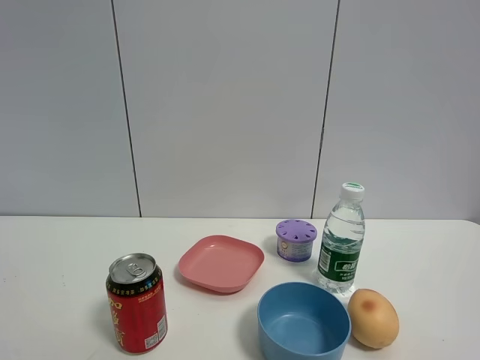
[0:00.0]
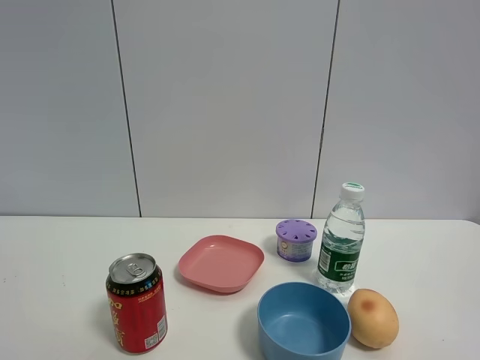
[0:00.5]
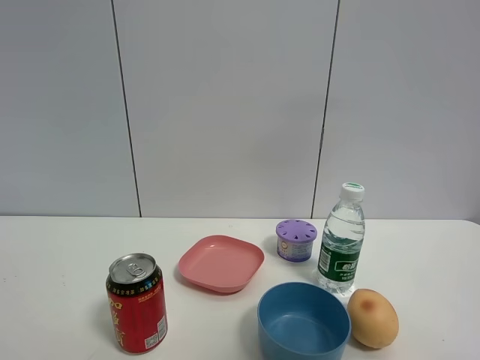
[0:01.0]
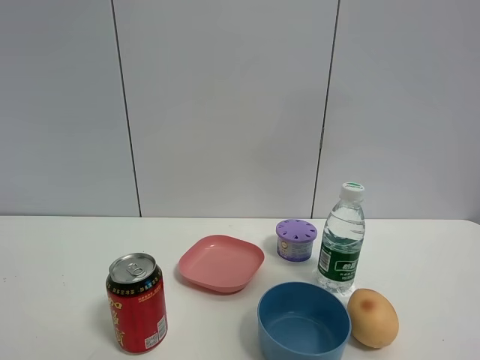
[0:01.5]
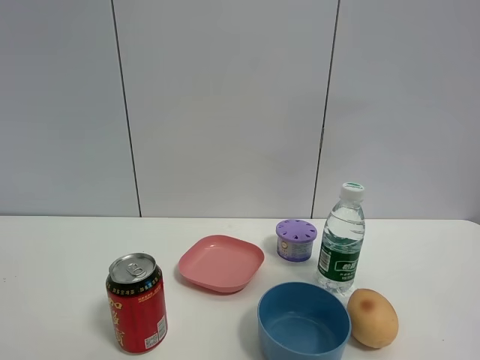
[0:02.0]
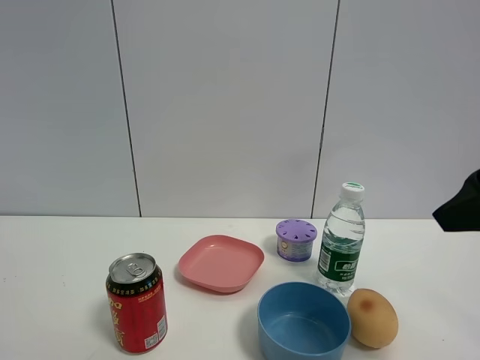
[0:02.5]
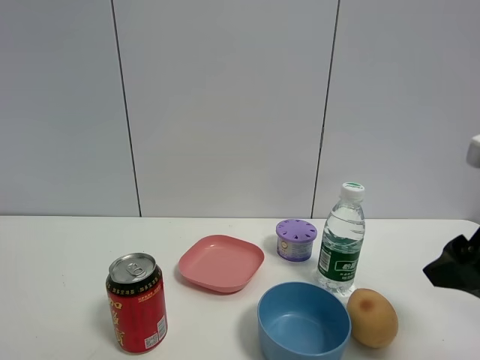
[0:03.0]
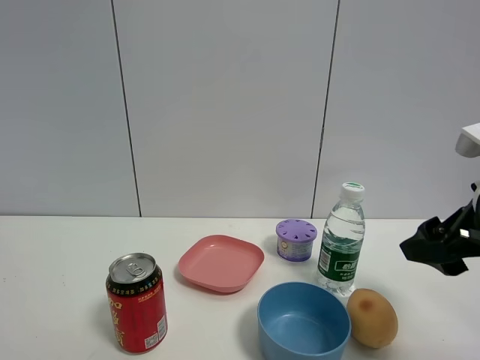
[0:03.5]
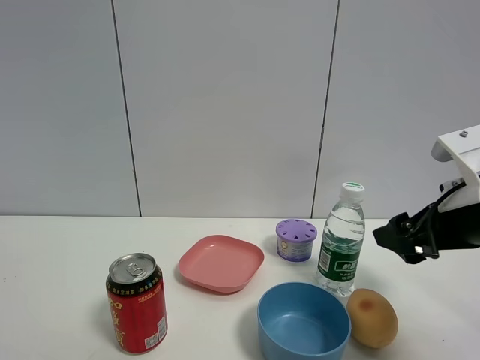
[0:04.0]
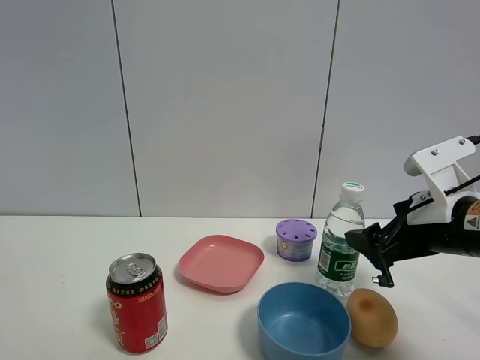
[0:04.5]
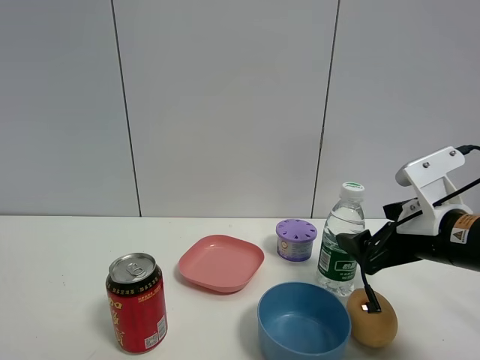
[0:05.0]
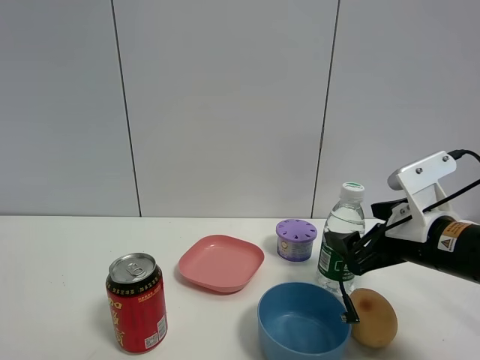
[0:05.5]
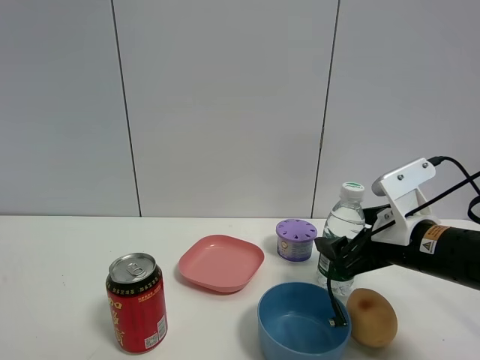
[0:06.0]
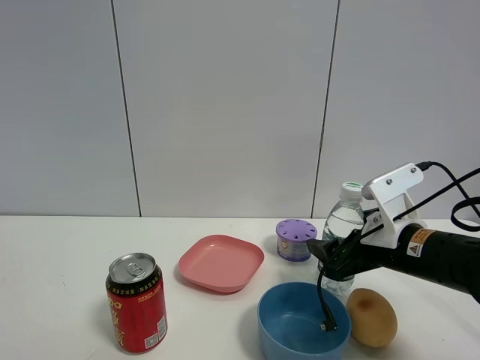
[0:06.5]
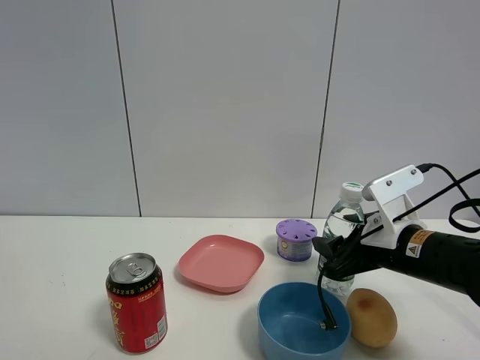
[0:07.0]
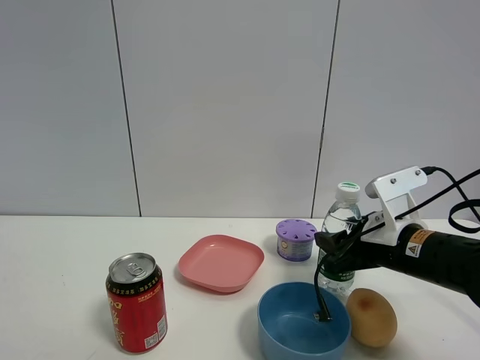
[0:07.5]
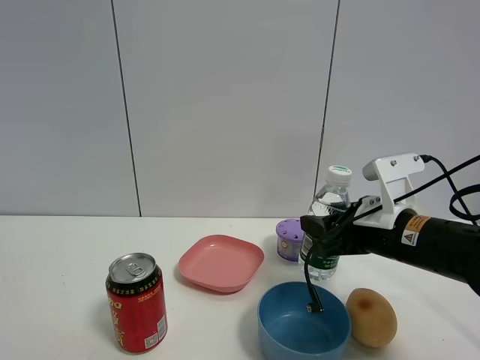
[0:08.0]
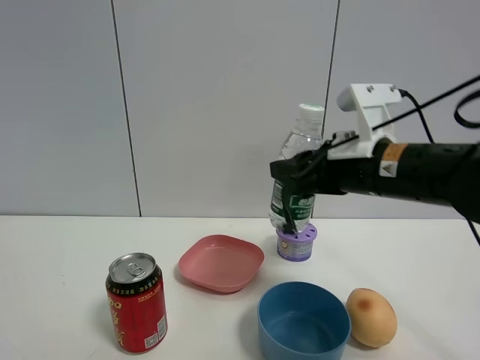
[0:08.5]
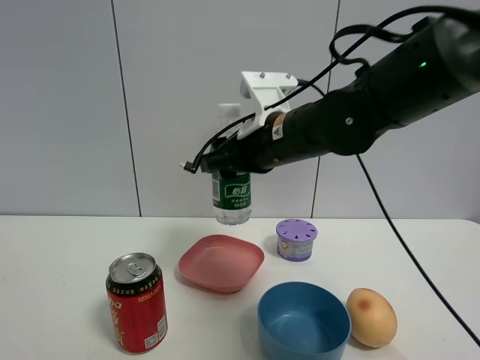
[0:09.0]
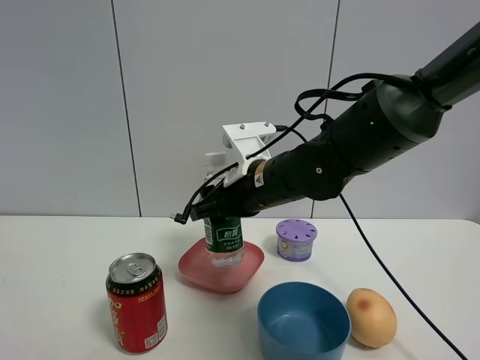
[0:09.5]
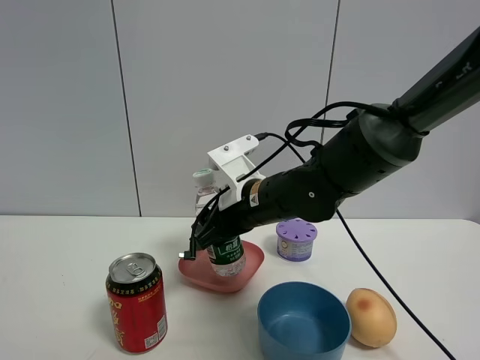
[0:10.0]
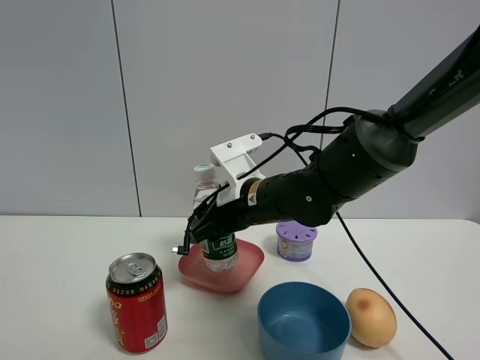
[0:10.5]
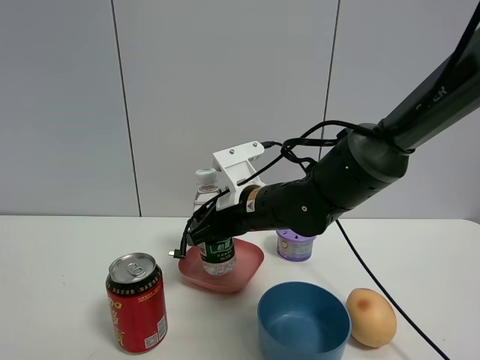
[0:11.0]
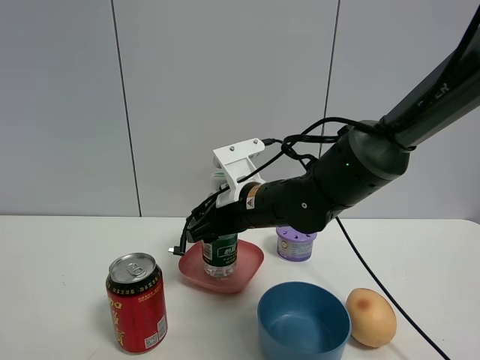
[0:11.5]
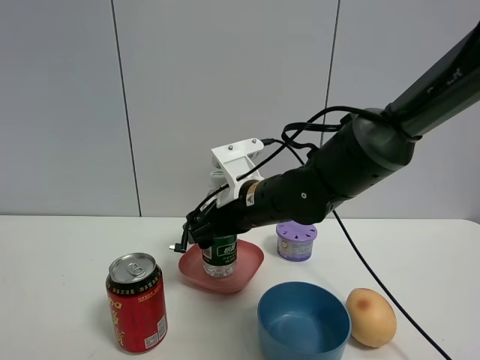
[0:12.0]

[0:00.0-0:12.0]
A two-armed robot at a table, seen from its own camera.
Task of the whole recording: the gripper move the object.
Step, 0:00.0 to 0:07.0: Grasp the YiBao mineral water with the right gripper.
0:00.0 to 0:02.0: The right gripper heads forward and upward, covering approximately 20 cm, and closes up.
0:02.0 to 0:04.0: The right gripper heads downward and forward, covering some 20 cm, and opens up.
0:04.0 to 0:06.0: The right gripper moves downward, about 5 cm.
0:06.0 to 0:08.0: The right gripper closes up.
0:08.0 to 0:10.0: The right gripper heads to the left, covering some 15 cm.
0:10.0 to 0:12.0: The right gripper opens.

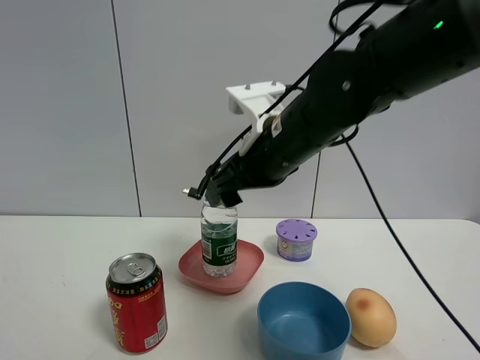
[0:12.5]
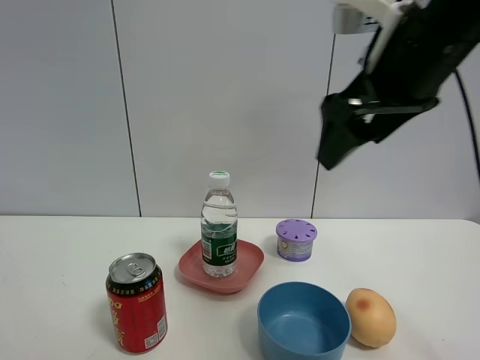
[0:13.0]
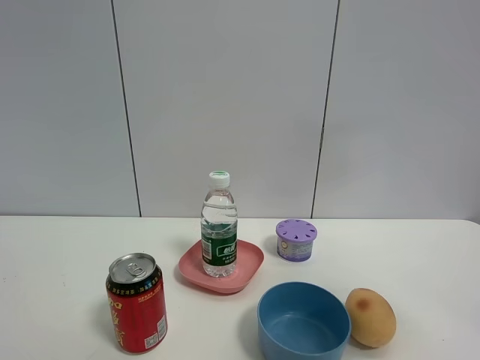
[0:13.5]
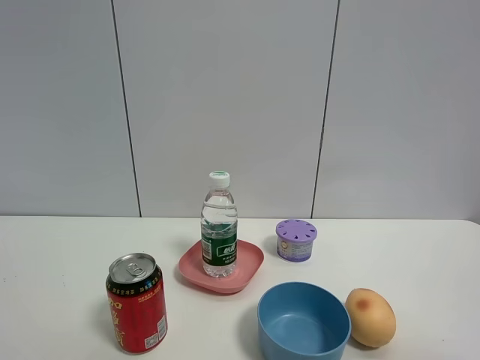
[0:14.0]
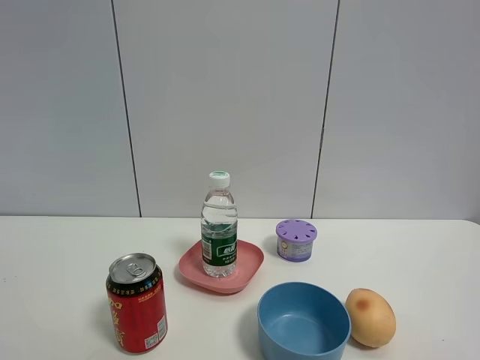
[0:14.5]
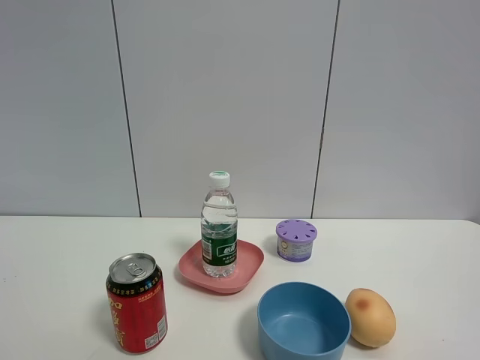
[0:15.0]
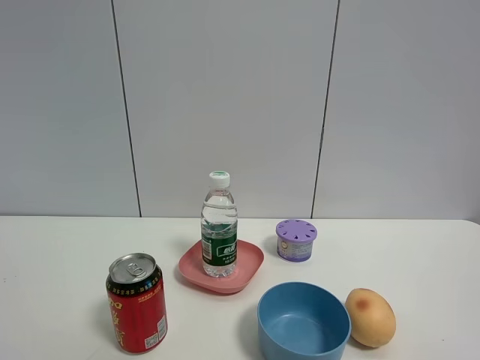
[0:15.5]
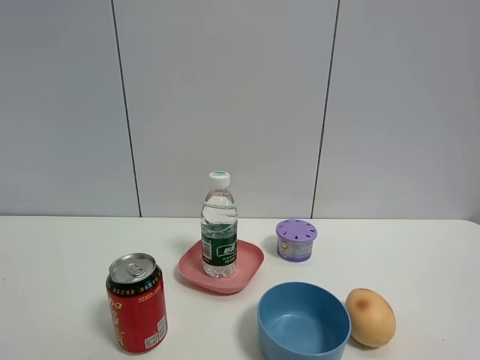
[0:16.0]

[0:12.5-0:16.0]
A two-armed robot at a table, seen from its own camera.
Task of the whole recording: the gripper move the object.
0:12.5 to 0:14.5: The right gripper heads backward and to the right, covering roughly 40 cm.
0:14.5 to 0:16.0: Both grippers stay about where they are.

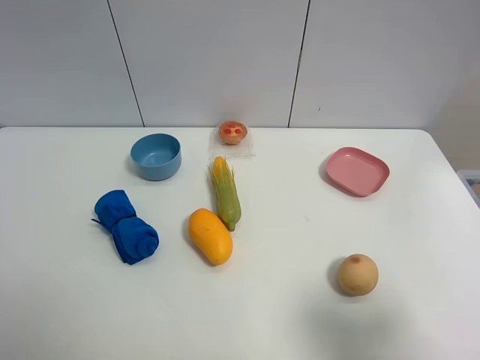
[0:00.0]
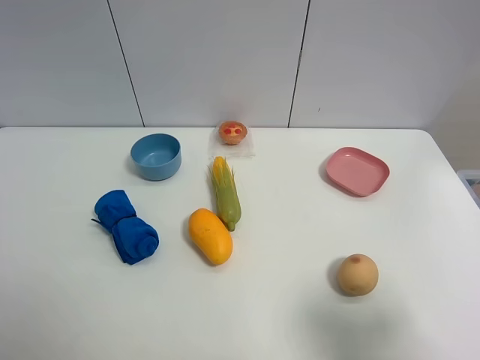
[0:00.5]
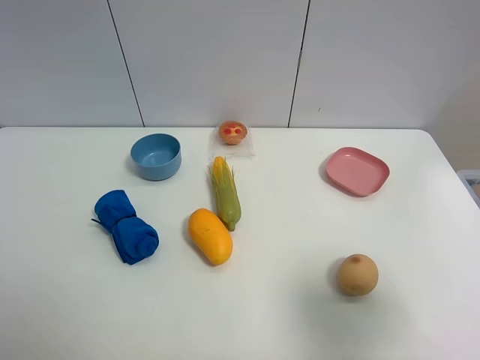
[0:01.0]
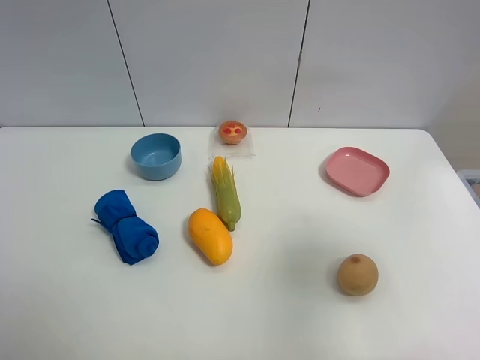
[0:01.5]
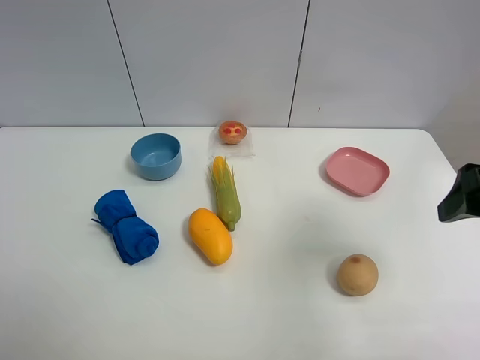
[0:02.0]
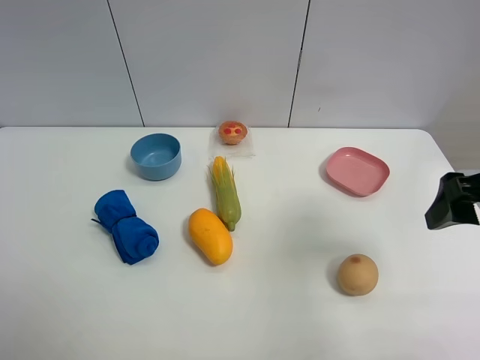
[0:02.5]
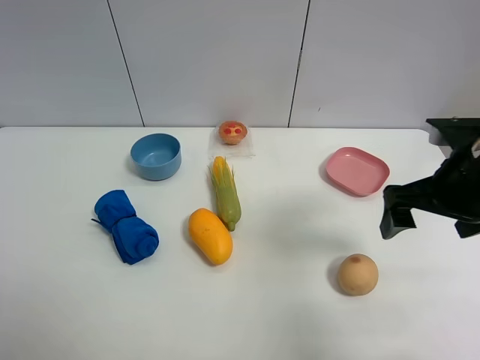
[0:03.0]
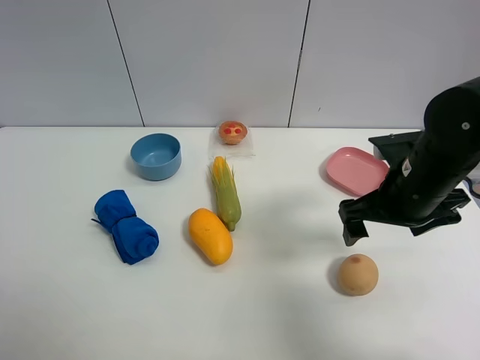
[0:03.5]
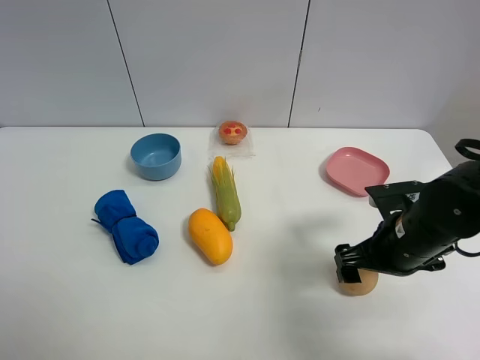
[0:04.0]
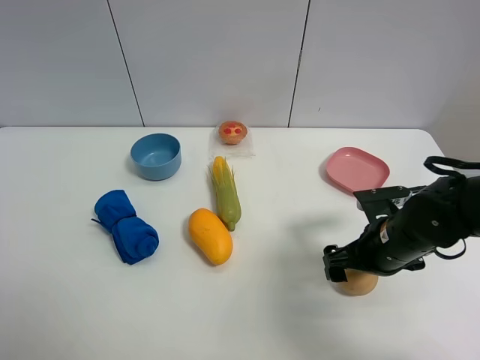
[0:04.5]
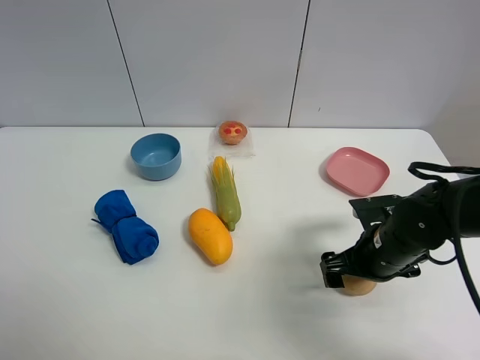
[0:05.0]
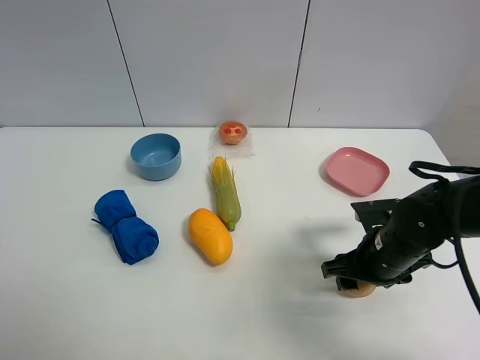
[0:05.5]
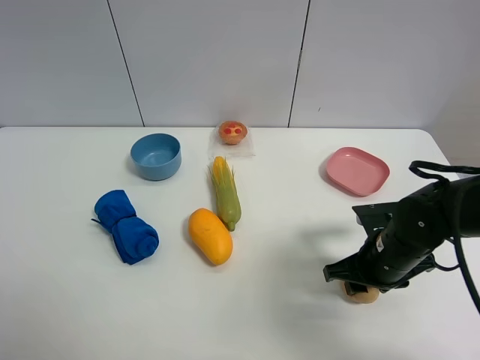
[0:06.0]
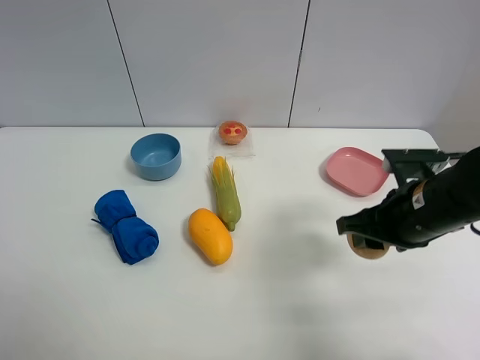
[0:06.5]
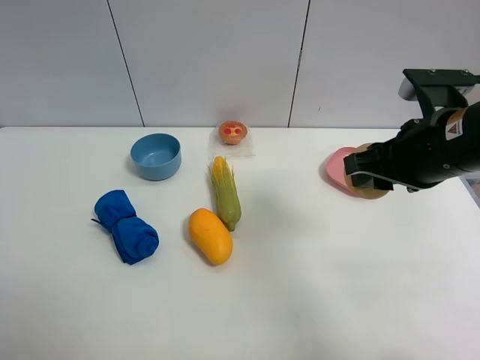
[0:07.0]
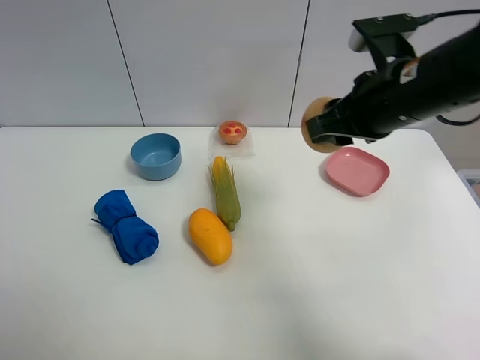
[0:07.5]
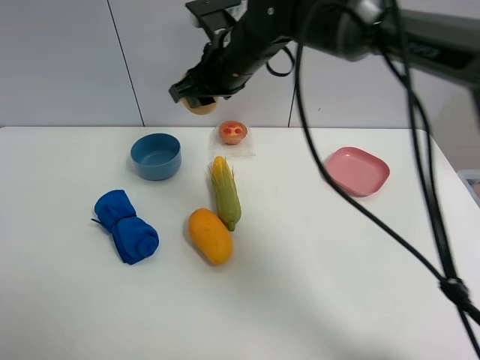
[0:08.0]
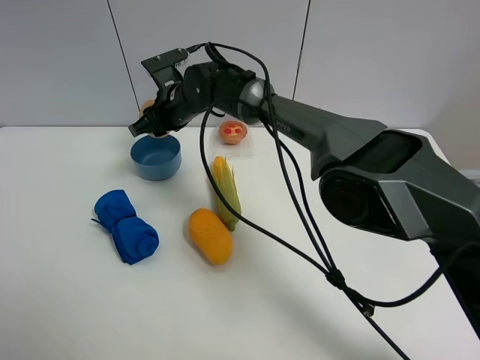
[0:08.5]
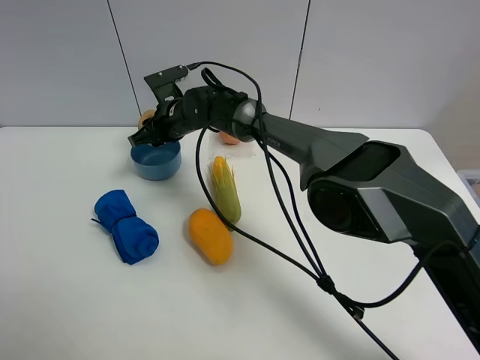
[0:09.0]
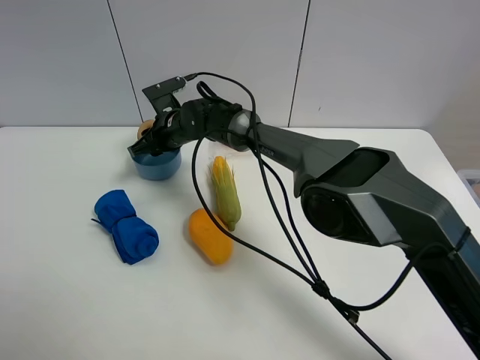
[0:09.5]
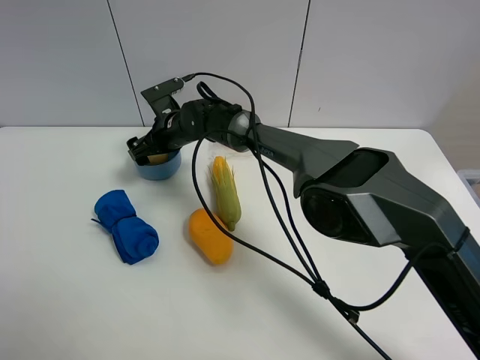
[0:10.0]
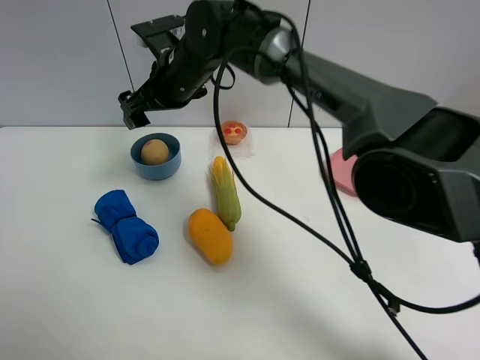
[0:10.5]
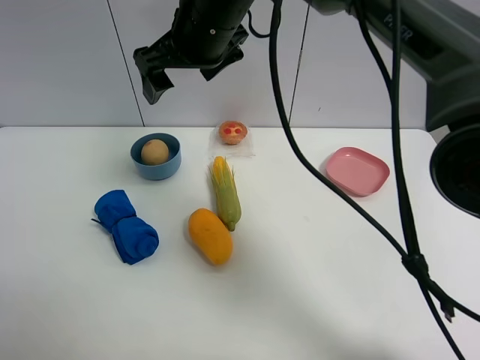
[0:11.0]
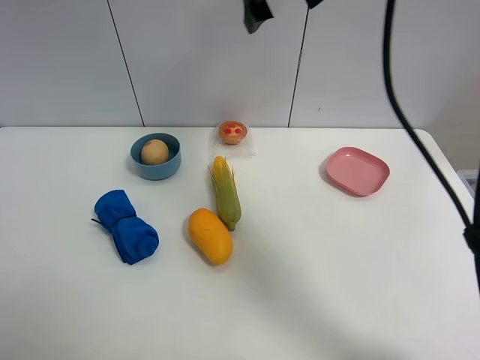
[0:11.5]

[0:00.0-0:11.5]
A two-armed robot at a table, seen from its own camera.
Task of the whole recording: the gripper move the object.
Step, 0:00.0 to 0:05.5: Grasp the egg yolk pastry with the right gripper.
Step, 0:06.0 to 0:10.0: Place the egg yolk pastry into the blue bowl with the right gripper.
0:00.0 to 0:02.0: The right gripper is displaced forward by approximately 15 cm.
0:02.0 to 0:04.0: The right gripper shifts approximately 20 cm downward and to the left.
0:04.0 to 0:06.0: The right gripper closes.
0:06.0 to 0:07.5: The right gripper goes approximately 20 cm upward.
0:07.5 to 0:09.5: The right gripper heads to the left, downward and forward, covering roughly 35 cm.
0:09.5 to 0:11.5: The right gripper travels upward and to the right by about 35 cm, and opens.
